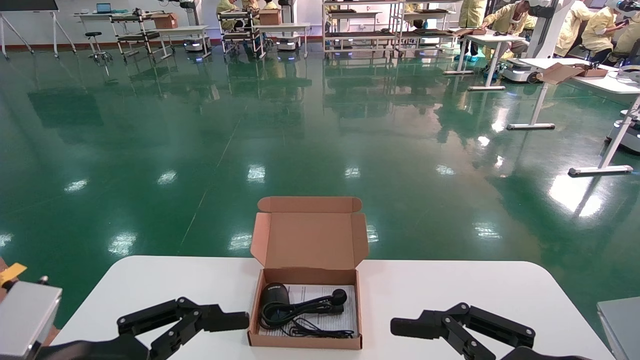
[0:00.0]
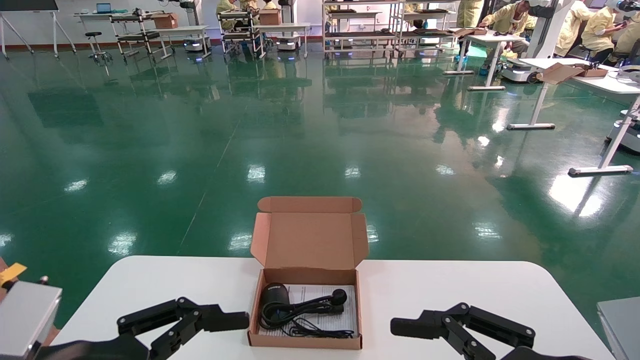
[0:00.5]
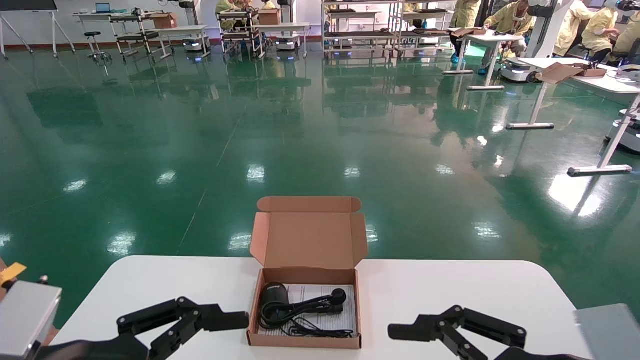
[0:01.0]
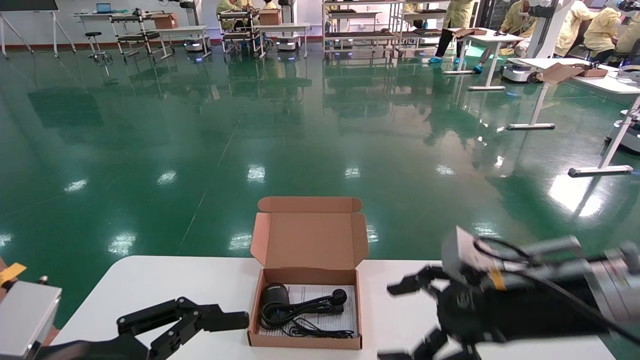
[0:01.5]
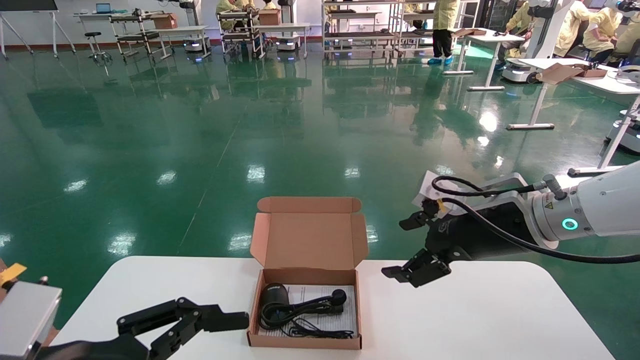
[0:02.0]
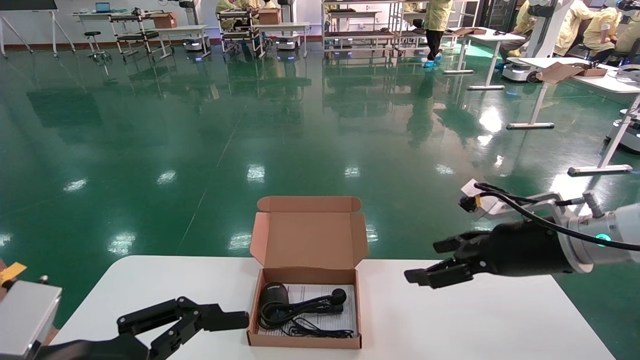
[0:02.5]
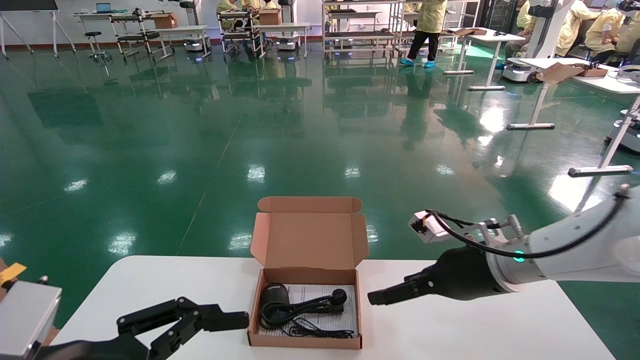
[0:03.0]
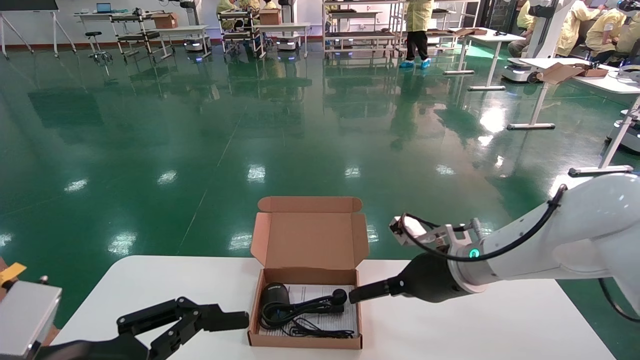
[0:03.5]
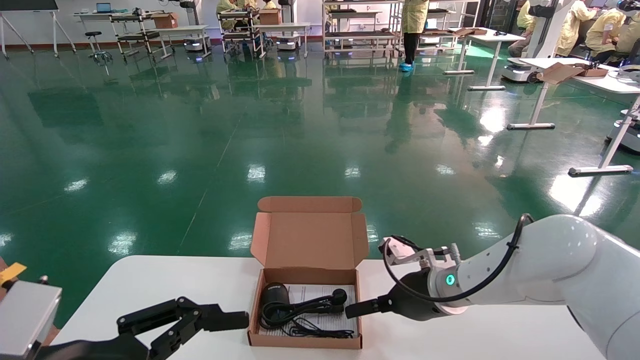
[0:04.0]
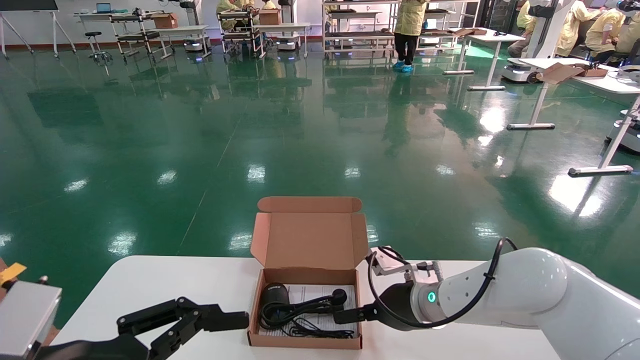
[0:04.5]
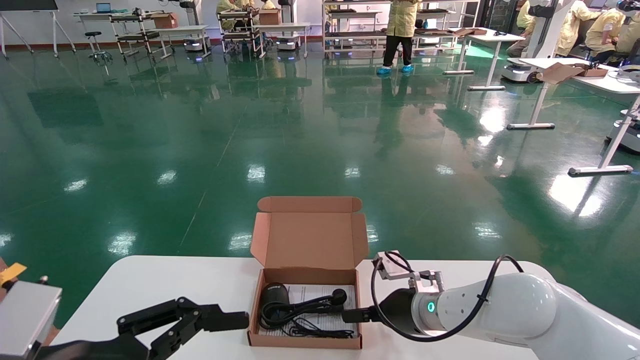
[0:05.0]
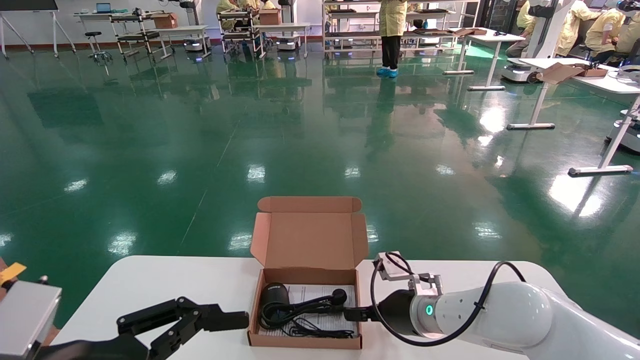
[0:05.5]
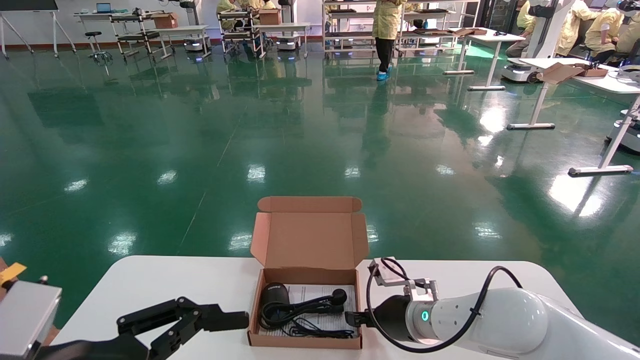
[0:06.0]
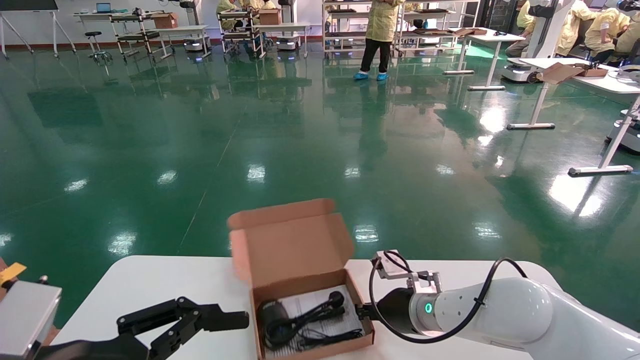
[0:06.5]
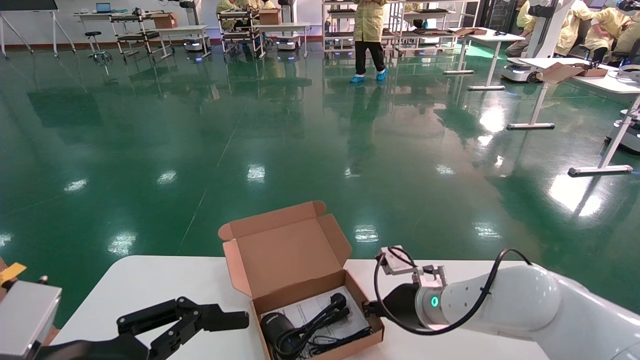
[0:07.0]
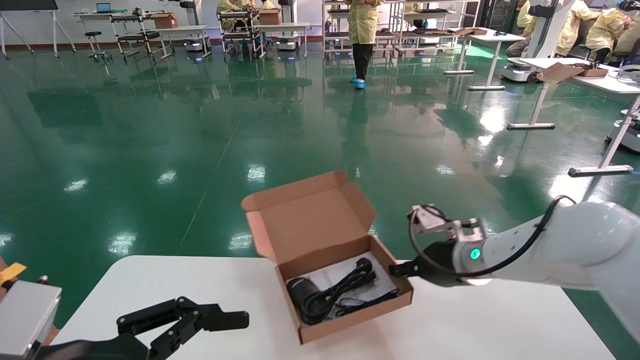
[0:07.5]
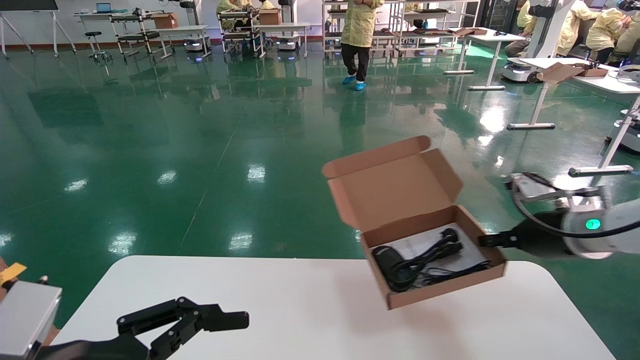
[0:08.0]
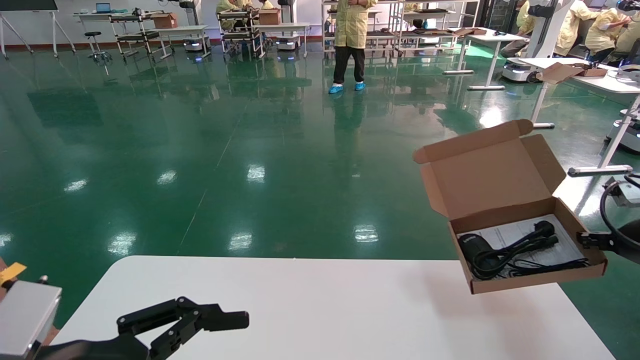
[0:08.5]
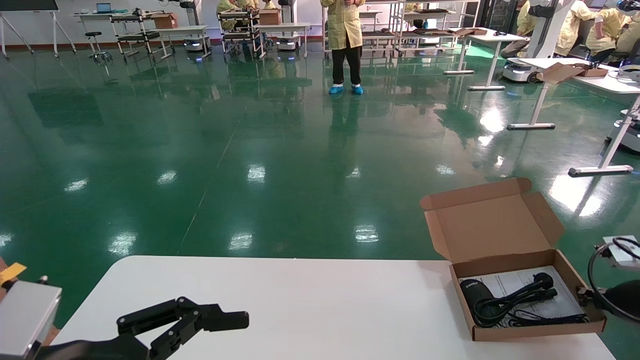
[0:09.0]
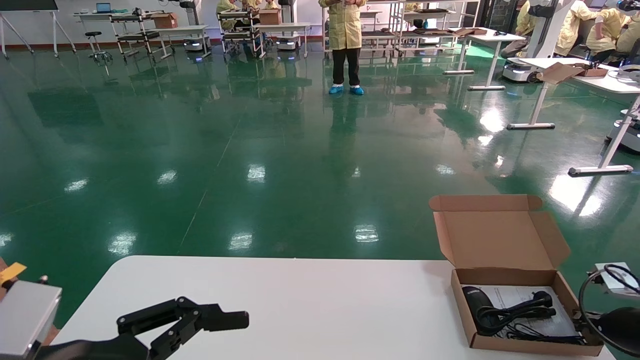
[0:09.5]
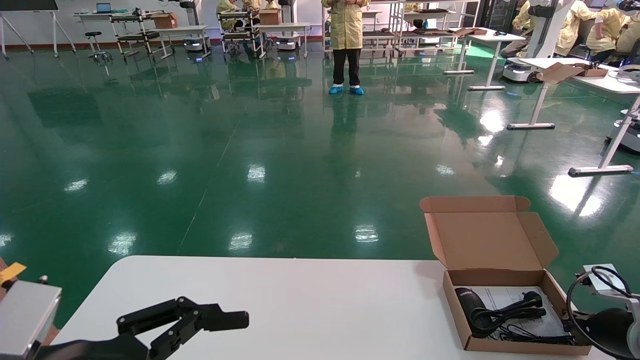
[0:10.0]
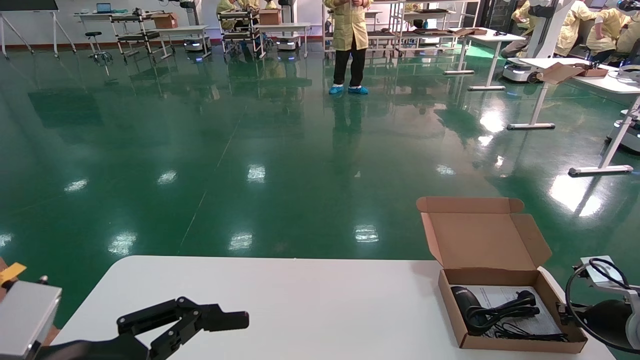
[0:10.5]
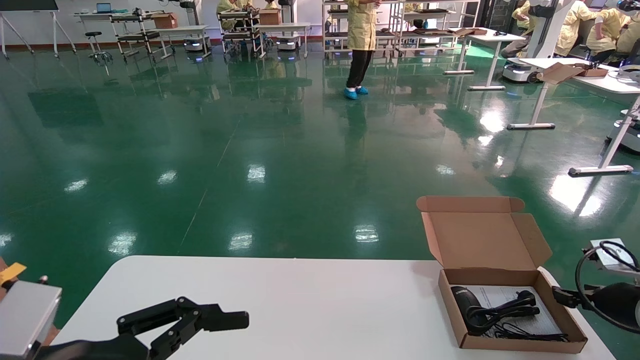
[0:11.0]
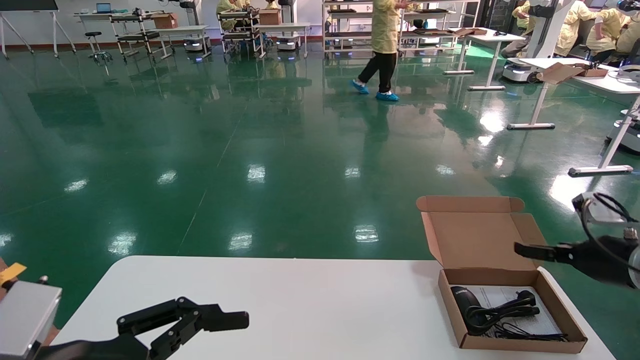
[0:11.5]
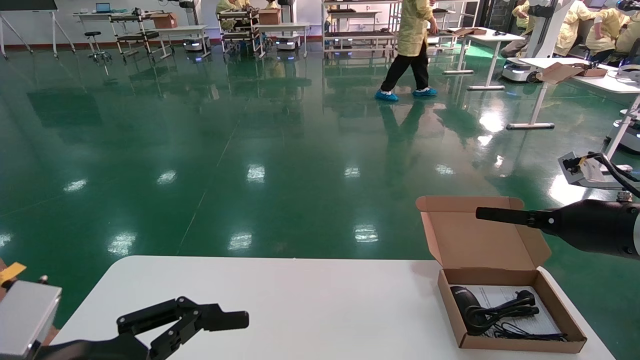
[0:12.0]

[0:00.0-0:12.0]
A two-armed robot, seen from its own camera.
Task of the whole recording: move the position of the storage box with accessories on the table.
Step, 0:01.5 to 0:06.5: Grab and pick up the open mouse box from the accessory packaging area.
Step, 0:07.0 to 0:10.5: Place the open mouse box onto the operation table.
0:00.0 to 0:02.0: The right gripper travels forward and upward by some 20 cm.
0:02.0 to 0:04.0: The right gripper moves downward, to the left and forward, about 15 cm.
0:04.0 to 0:06.0: The right gripper moves downward, about 5 cm, and closes up.
0:06.0 to 0:08.0: The right gripper heads to the right and upward, covering roughly 25 cm, and closes up.
0:08.0 to 0:10.0: The right gripper travels downward and to the right by approximately 20 cm.
0:10.0 to 0:12.0: The right gripper goes roughly 15 cm upward, and opens its fingers.

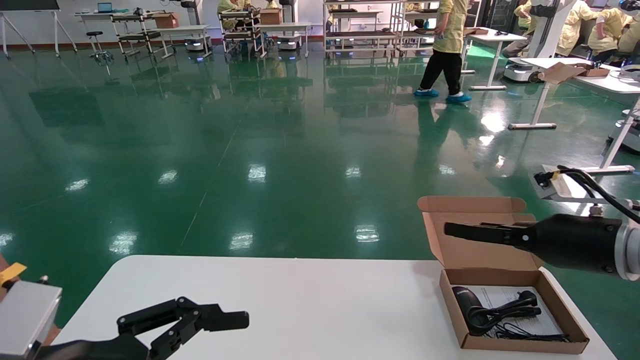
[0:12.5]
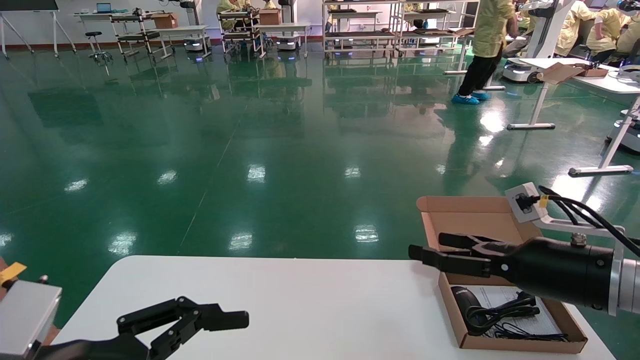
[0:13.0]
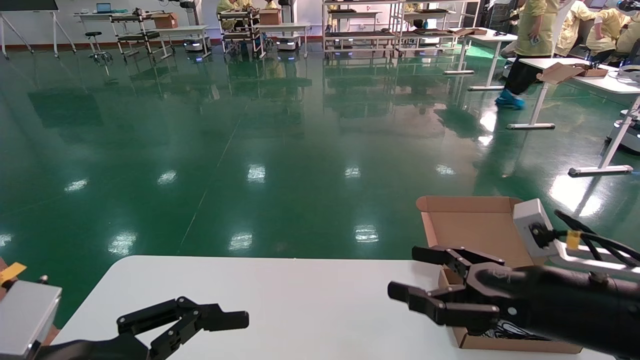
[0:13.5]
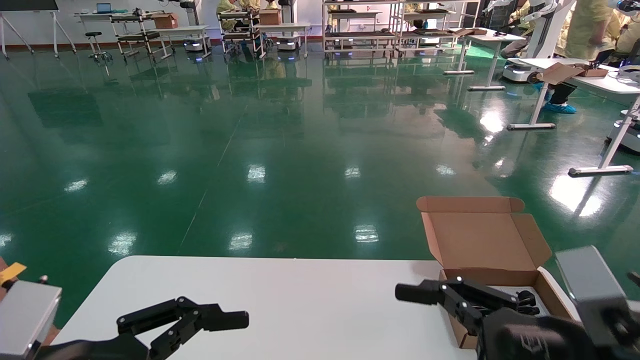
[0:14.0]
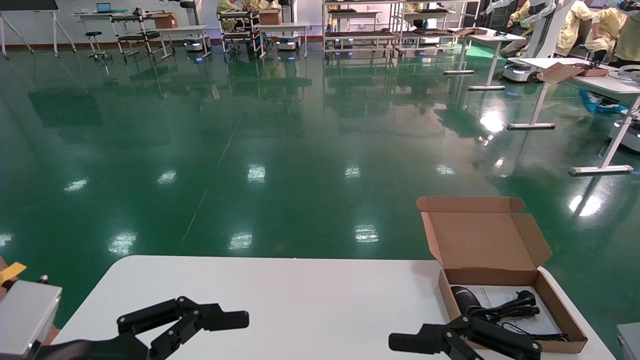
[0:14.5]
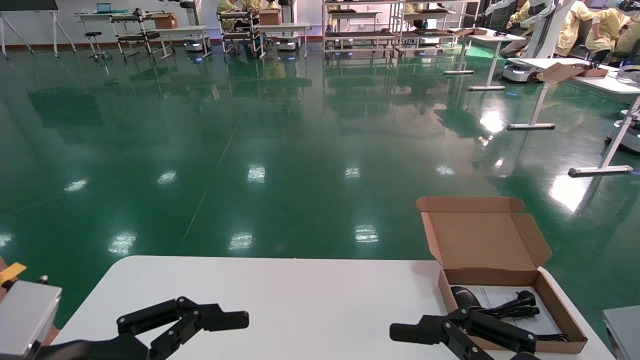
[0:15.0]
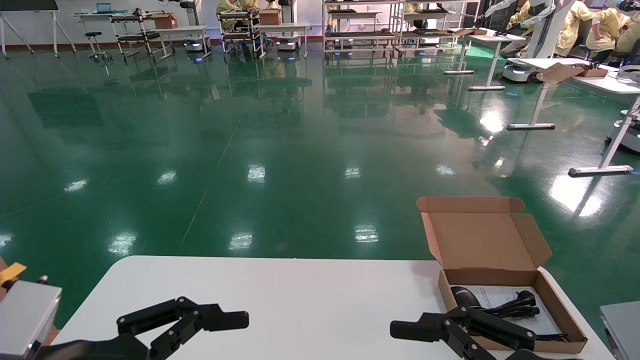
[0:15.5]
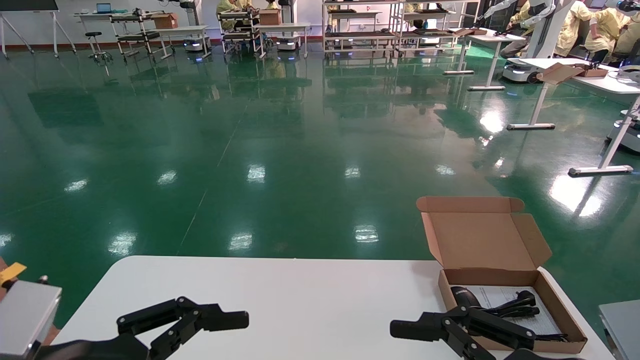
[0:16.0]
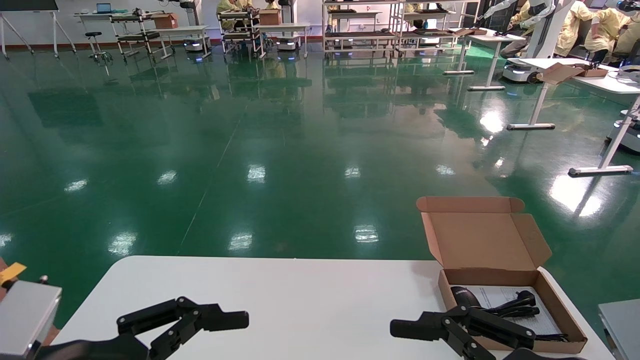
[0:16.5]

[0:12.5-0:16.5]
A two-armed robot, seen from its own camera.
Task of the whole recording: move the position of the storage box with accessories on the table.
0:12.5 to 0:14.5: The right gripper moves backward and to the left, approximately 25 cm.
0:14.5 to 0:16.5: Both grippers stay put.
